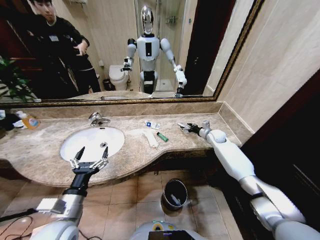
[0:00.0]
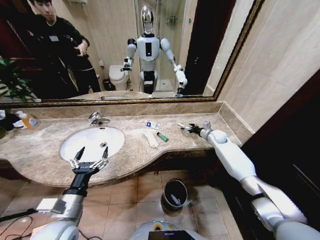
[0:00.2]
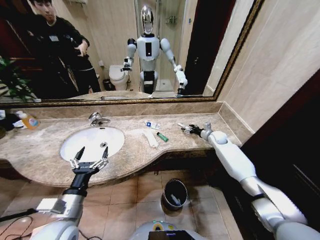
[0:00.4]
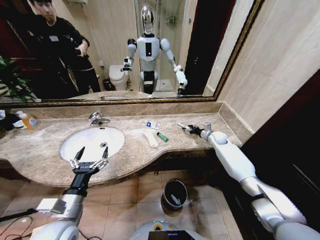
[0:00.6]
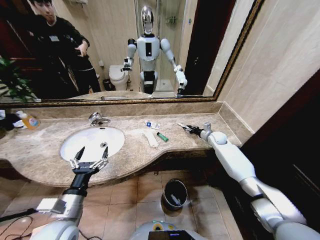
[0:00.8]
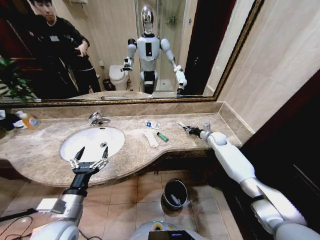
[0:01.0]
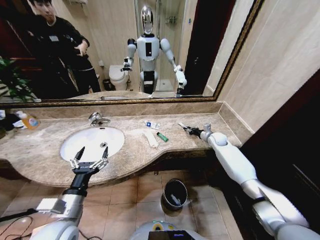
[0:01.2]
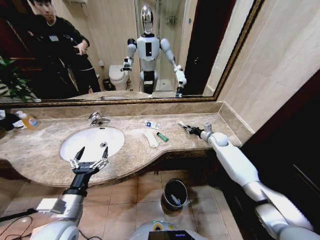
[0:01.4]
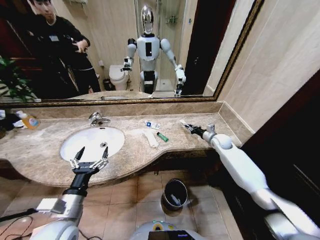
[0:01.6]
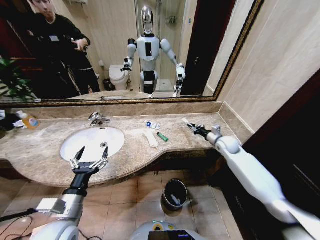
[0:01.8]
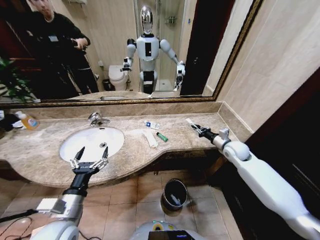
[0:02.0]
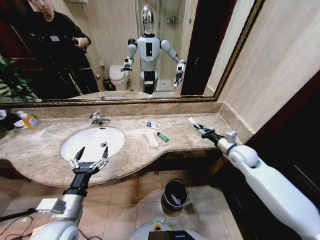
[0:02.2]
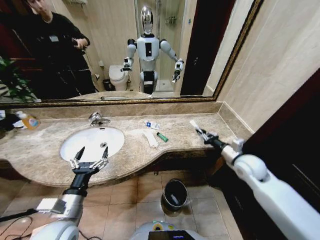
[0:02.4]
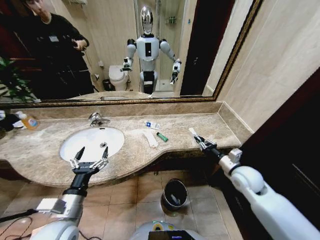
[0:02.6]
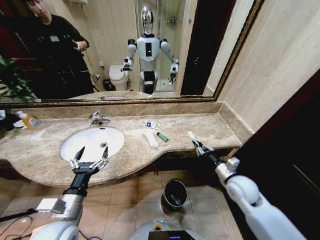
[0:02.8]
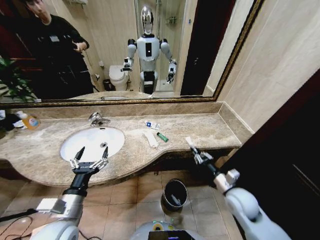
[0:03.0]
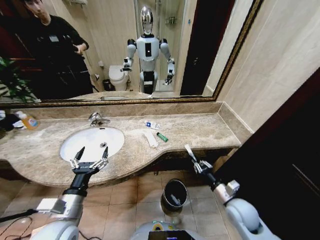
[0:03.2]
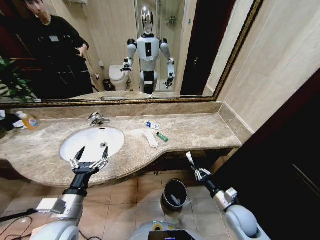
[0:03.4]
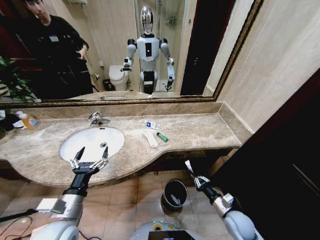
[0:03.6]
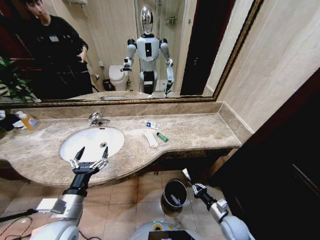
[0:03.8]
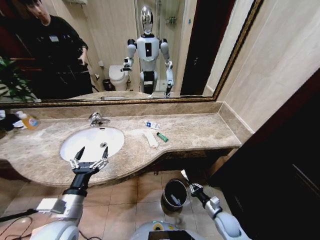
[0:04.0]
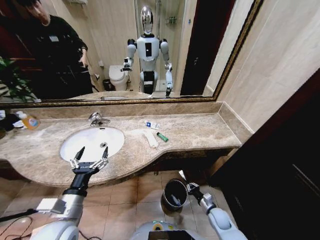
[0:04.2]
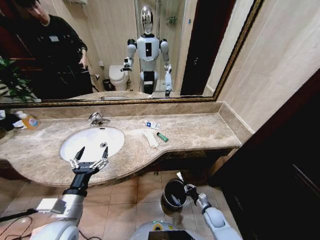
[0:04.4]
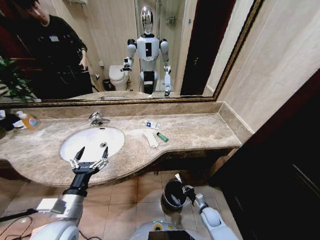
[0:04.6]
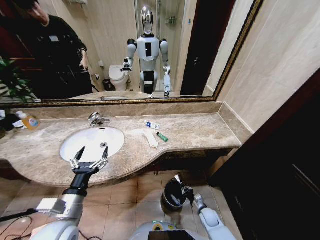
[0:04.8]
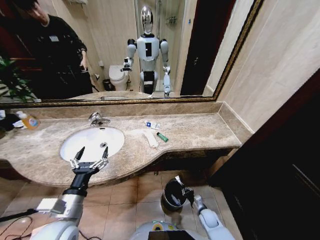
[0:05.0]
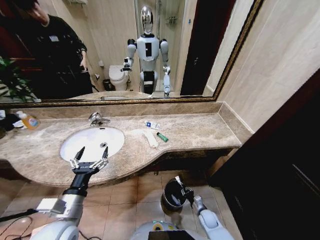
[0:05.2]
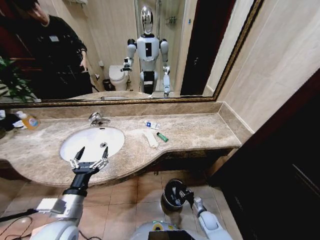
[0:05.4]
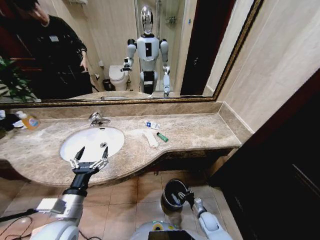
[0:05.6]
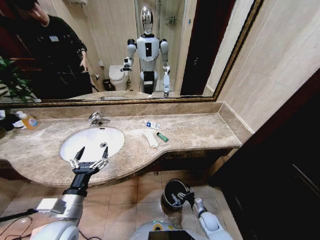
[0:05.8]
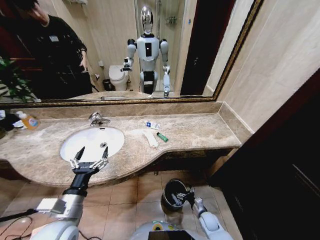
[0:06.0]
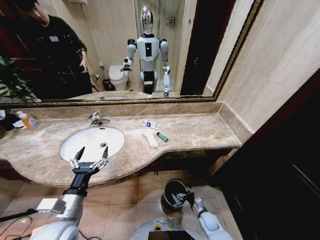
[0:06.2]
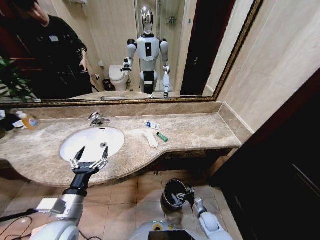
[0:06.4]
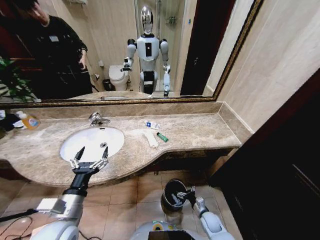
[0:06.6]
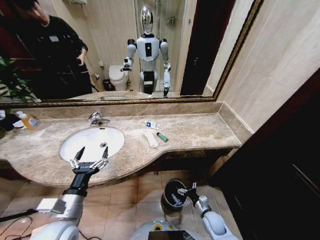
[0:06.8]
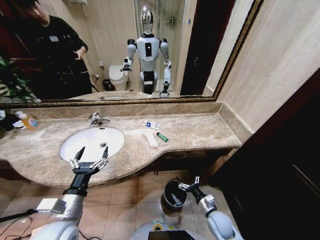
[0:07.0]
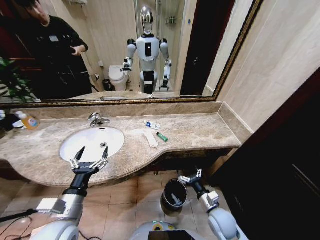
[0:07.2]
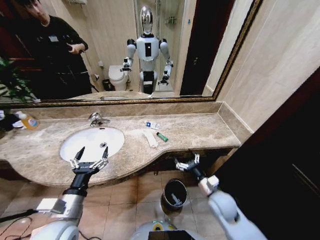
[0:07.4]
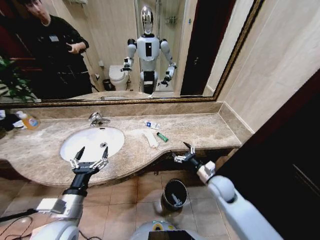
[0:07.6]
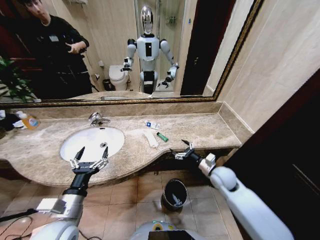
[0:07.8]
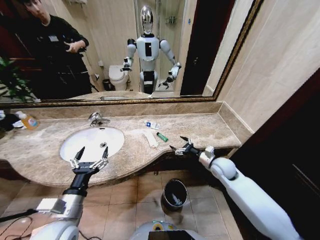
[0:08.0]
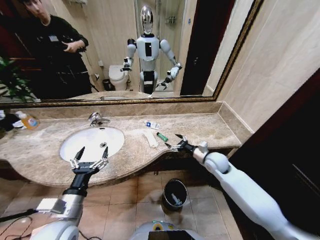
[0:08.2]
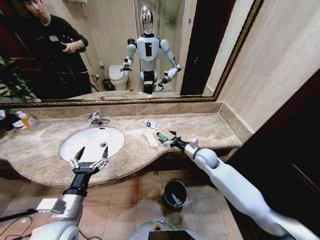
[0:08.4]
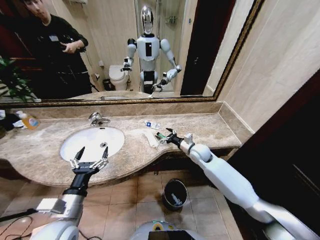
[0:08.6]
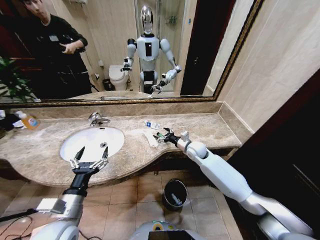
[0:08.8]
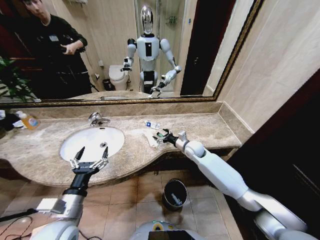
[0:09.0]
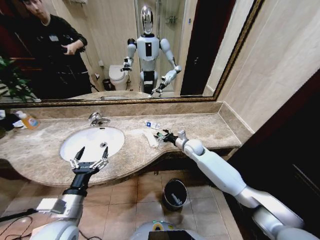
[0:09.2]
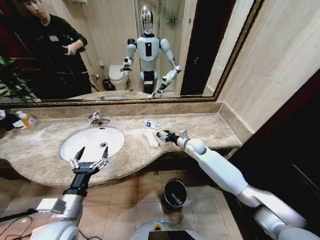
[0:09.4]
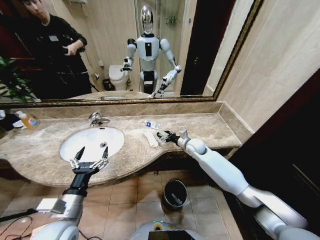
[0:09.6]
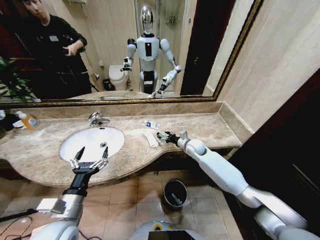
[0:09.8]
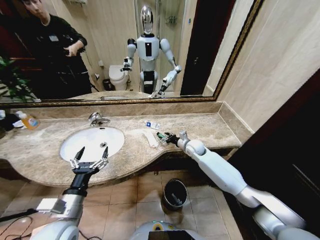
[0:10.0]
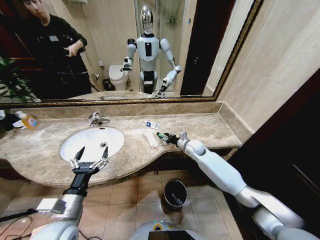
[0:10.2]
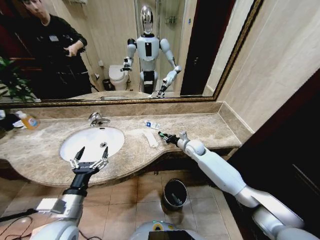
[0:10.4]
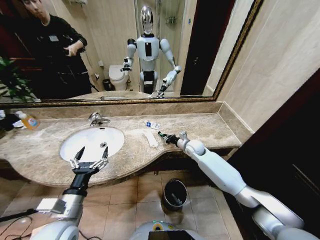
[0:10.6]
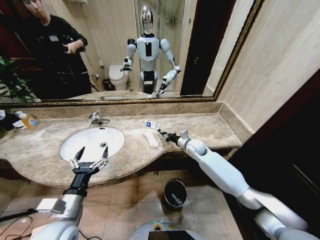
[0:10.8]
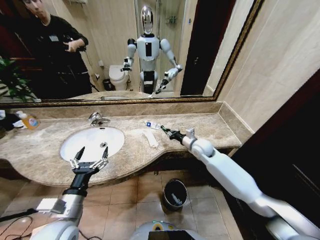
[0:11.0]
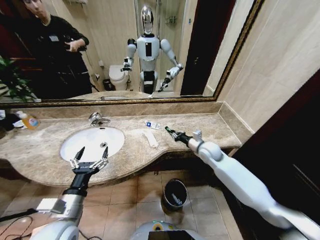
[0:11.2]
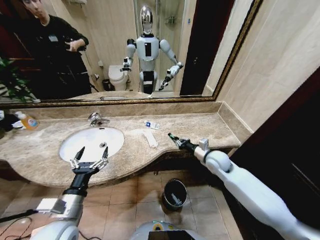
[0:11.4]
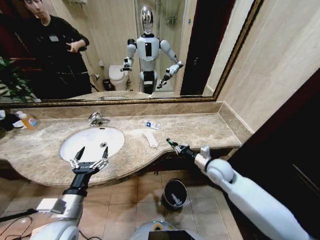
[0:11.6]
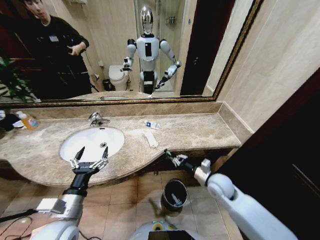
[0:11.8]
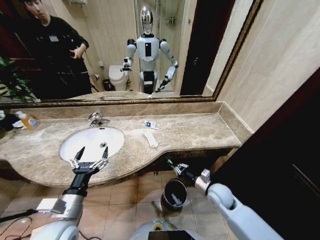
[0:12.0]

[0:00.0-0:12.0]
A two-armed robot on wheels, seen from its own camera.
Task of the whole recording: Pick up the trash from the sink and place it in the trash bin.
0:00.0 to 0:01.6: The right gripper closes its fingers.
0:01.6 to 0:03.0: The right gripper goes about 30 cm backward.
0:03.0 to 0:04.4: The right gripper travels downward by roughly 25 cm.
0:04.4 to 0:06.0: The right gripper opens its fingers.
0:06.0 to 0:07.6: The right gripper shifts roughly 25 cm upward.
0:07.6 to 0:09.0: The right gripper heads forward, covering roughly 20 cm.
0:09.0 to 0:10.4: The right gripper closes up.
0:10.4 to 0:12.0: The right gripper moves backward, about 20 cm.

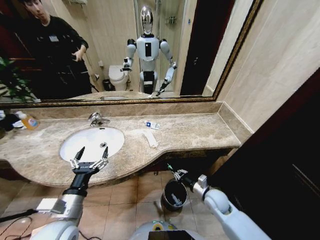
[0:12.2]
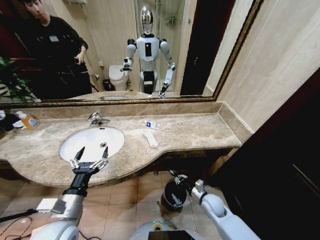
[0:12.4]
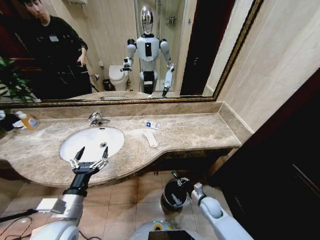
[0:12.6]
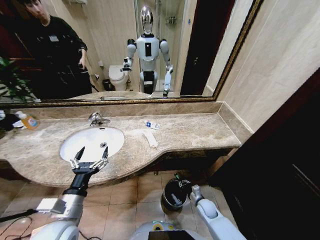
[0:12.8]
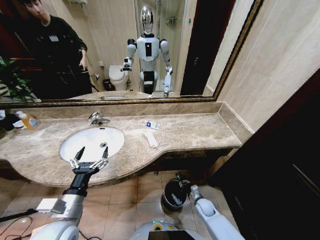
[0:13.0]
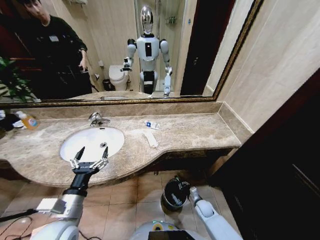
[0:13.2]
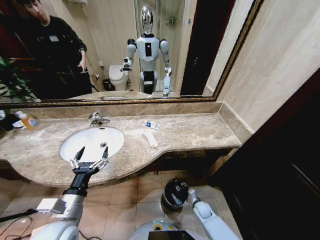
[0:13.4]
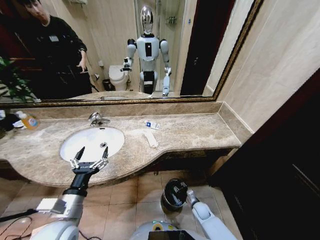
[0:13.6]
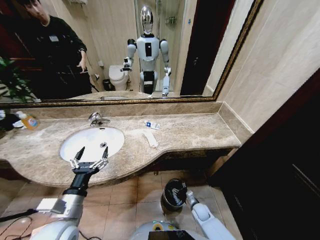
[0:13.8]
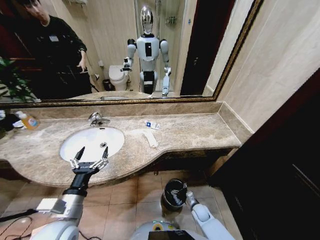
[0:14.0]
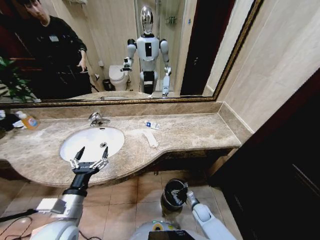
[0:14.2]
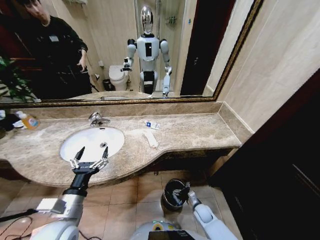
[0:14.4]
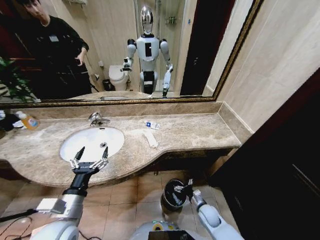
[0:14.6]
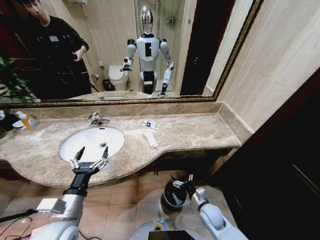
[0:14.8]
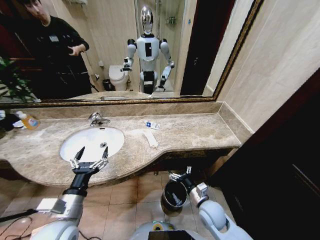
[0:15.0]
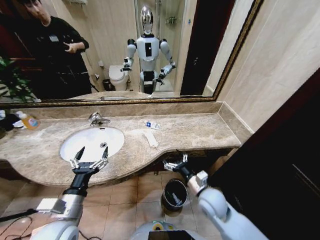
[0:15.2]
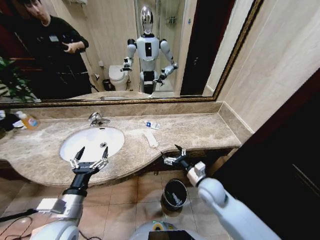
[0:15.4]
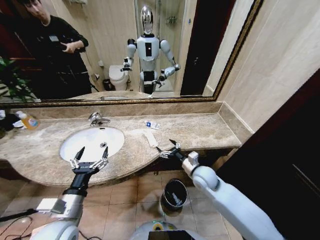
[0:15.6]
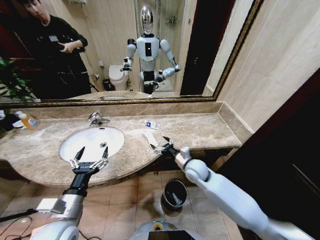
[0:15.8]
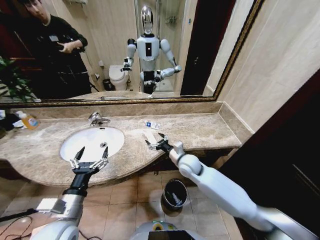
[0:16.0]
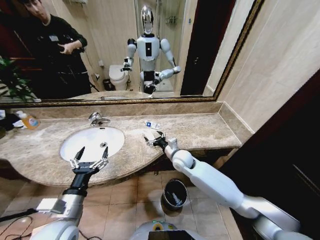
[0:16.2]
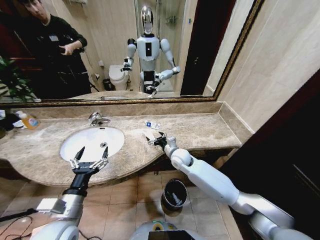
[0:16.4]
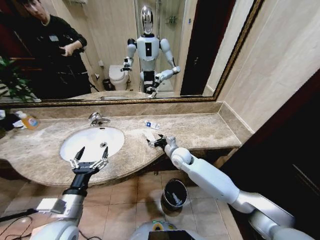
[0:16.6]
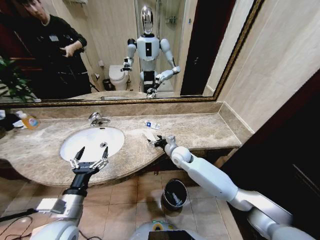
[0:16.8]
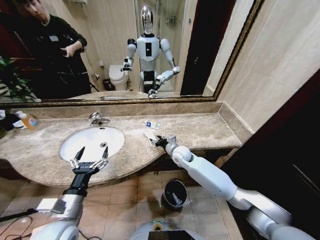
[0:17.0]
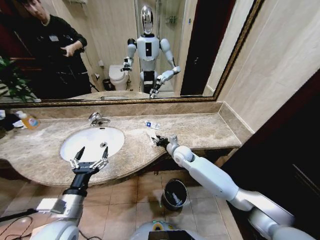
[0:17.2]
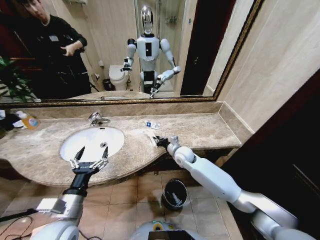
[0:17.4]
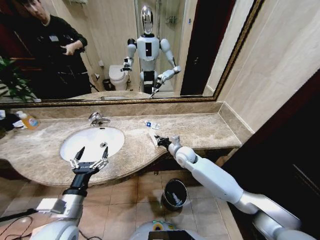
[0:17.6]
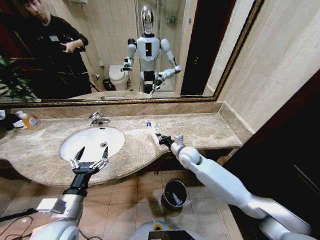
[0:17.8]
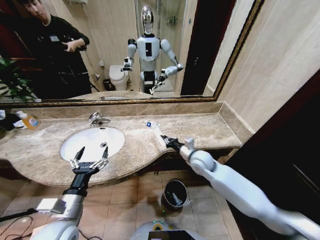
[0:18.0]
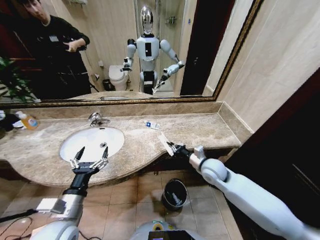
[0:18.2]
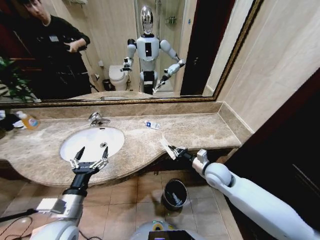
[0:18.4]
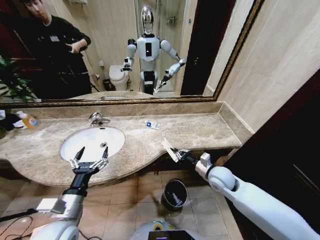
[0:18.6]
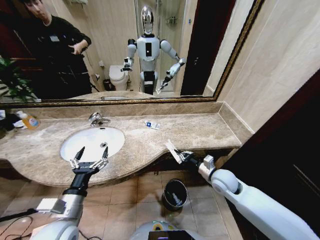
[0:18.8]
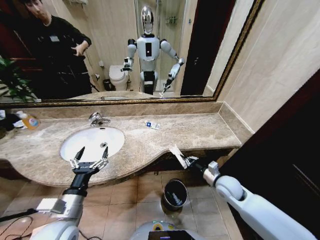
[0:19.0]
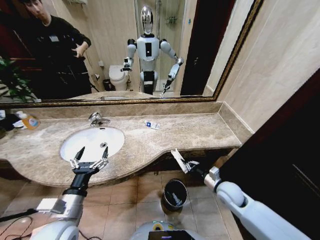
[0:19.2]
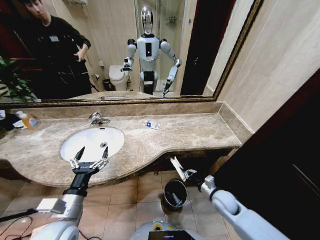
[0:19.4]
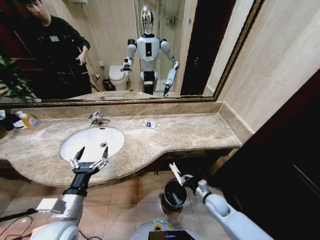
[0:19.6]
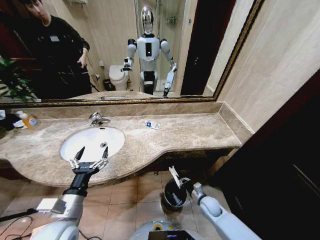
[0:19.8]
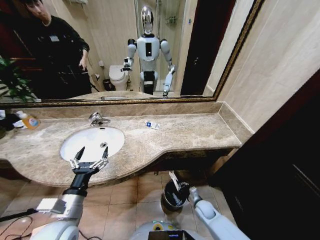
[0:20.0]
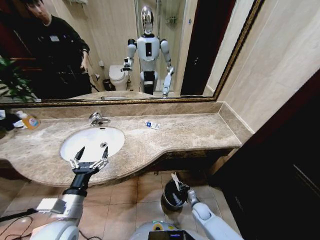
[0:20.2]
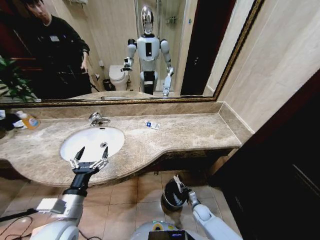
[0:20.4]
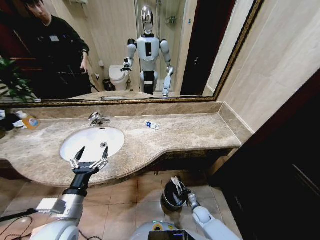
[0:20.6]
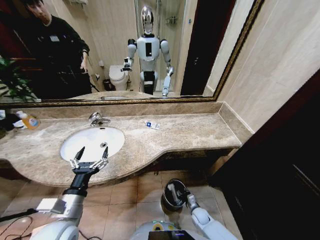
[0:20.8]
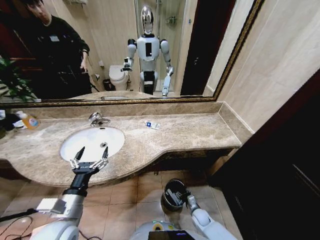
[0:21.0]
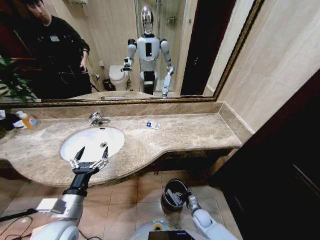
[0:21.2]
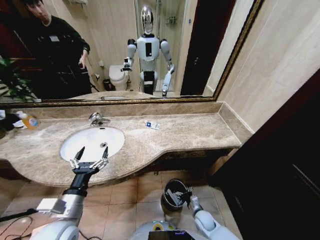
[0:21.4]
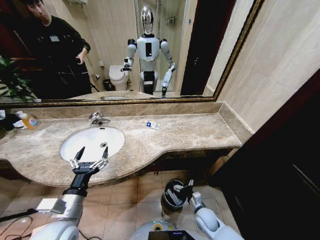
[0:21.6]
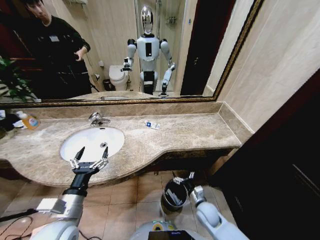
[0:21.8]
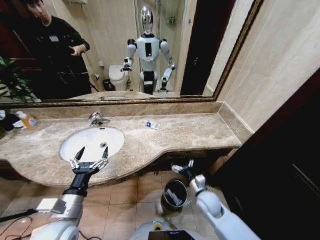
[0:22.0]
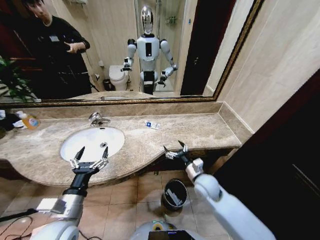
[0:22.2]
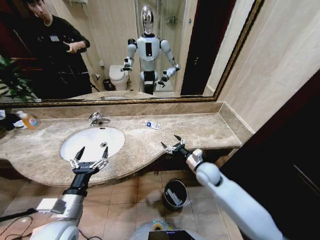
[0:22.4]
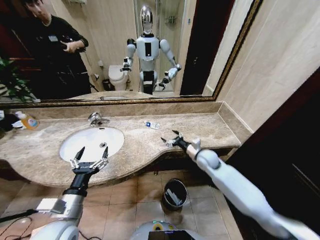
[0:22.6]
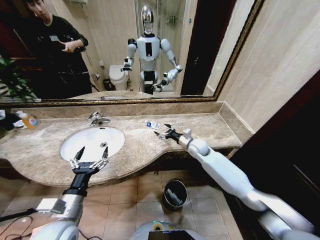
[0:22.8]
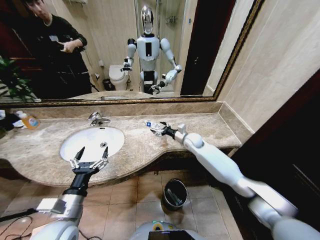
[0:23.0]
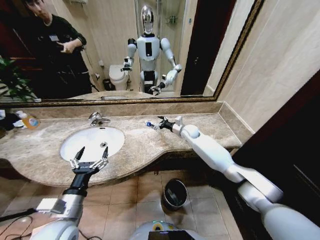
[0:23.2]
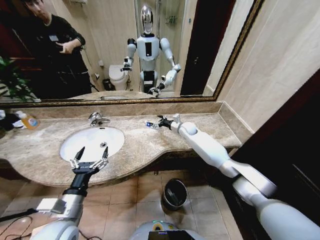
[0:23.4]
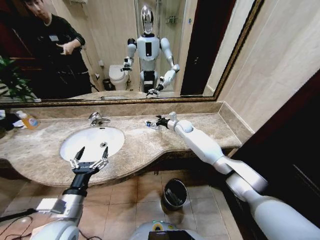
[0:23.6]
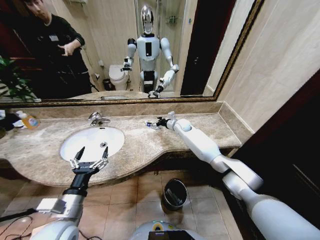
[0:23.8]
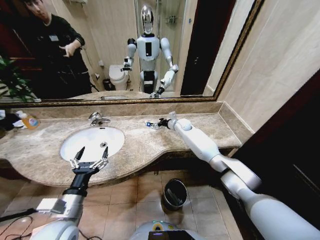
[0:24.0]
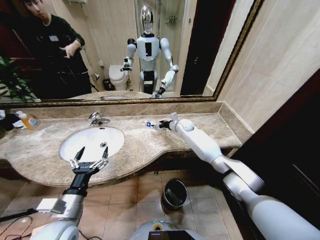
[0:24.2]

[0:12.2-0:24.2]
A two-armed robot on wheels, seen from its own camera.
Task of the whole recording: Pick up the trash from the sink and place it in the trash bin.
0:12.2 to 0:13.8: The right gripper goes approximately 20 cm downward, and opens up.
0:13.8 to 0:15.2: The right gripper travels upward by approximately 30 cm, and opens up.
0:15.2 to 0:16.6: The right gripper goes roughly 20 cm forward.
0:16.6 to 0:18.2: The right gripper moves to the right and backward, about 15 cm, and closes up.
0:18.2 to 0:19.8: The right gripper goes approximately 25 cm downward.
0:19.8 to 0:21.2: The right gripper shifts roughly 10 cm downward, and opens its fingers.
0:21.2 to 0:22.6: The right gripper travels upward and forward by about 35 cm.
0:22.6 to 0:24.2: The right gripper moves forward, about 20 cm.
